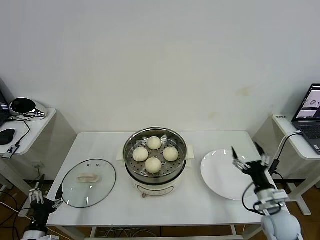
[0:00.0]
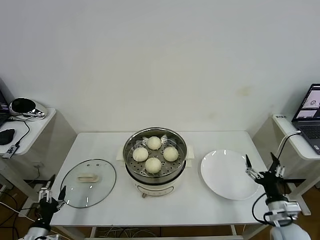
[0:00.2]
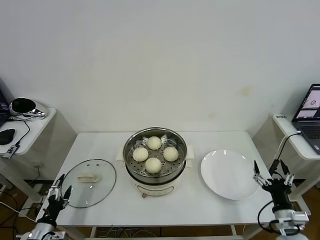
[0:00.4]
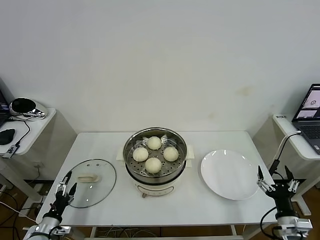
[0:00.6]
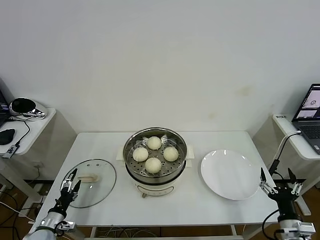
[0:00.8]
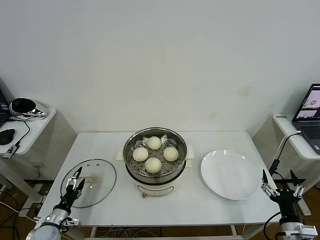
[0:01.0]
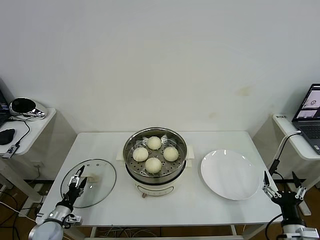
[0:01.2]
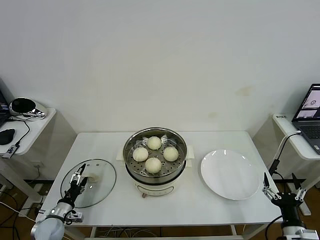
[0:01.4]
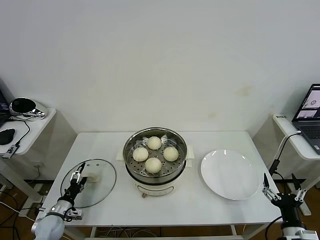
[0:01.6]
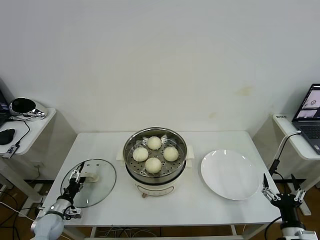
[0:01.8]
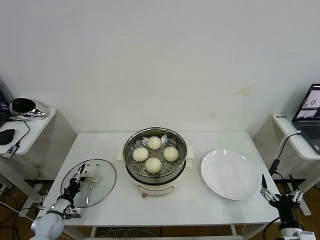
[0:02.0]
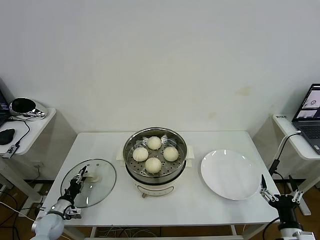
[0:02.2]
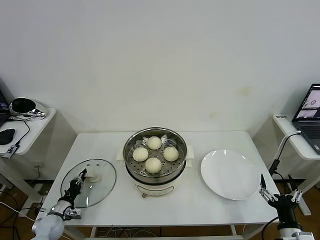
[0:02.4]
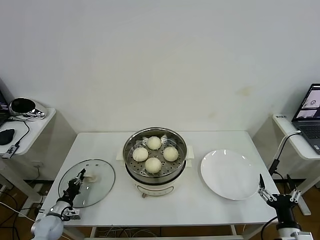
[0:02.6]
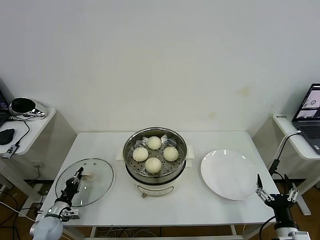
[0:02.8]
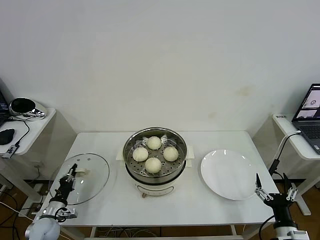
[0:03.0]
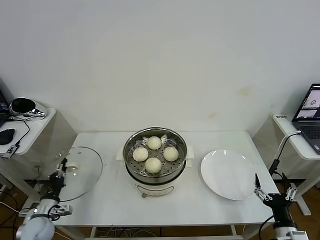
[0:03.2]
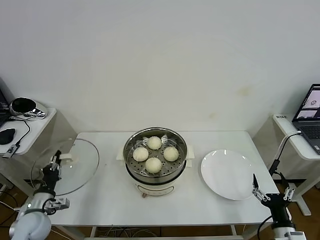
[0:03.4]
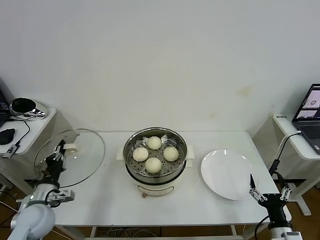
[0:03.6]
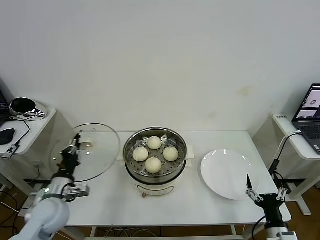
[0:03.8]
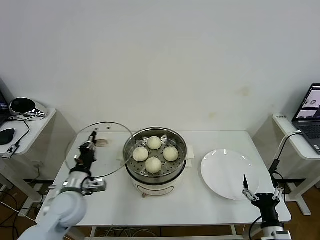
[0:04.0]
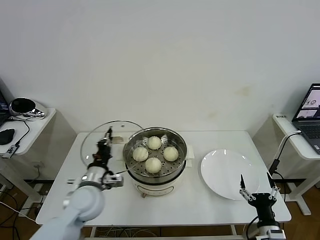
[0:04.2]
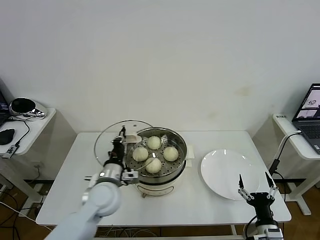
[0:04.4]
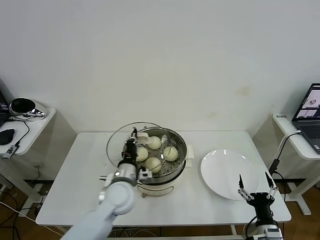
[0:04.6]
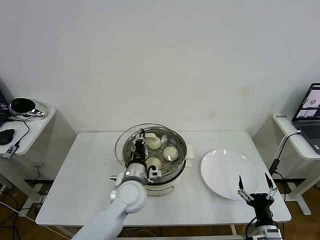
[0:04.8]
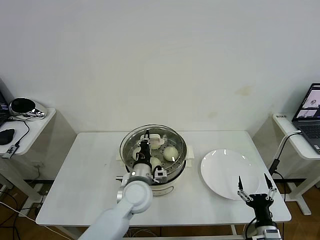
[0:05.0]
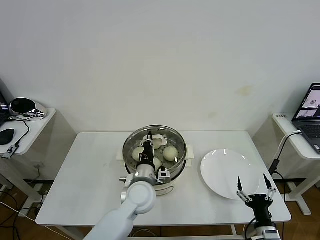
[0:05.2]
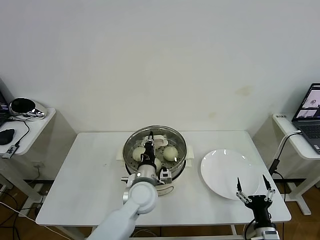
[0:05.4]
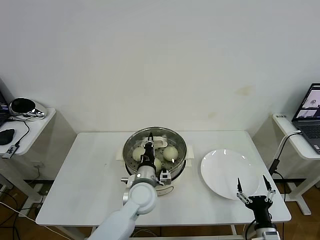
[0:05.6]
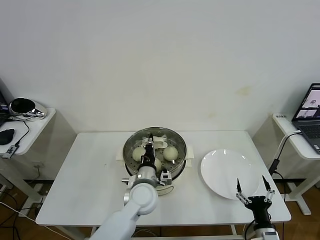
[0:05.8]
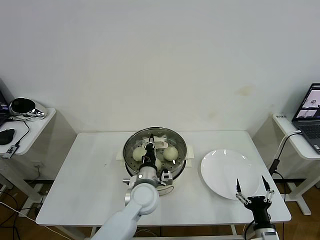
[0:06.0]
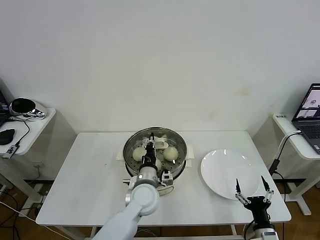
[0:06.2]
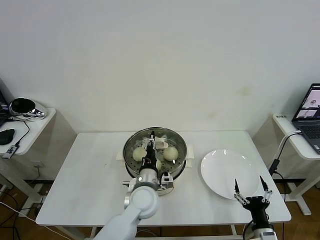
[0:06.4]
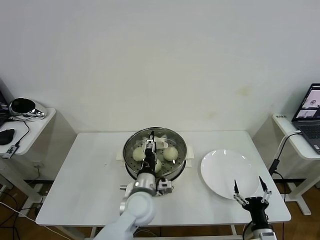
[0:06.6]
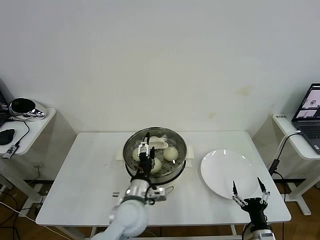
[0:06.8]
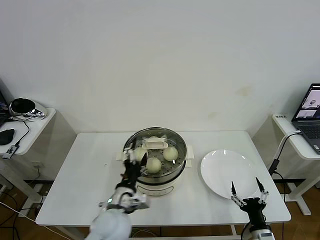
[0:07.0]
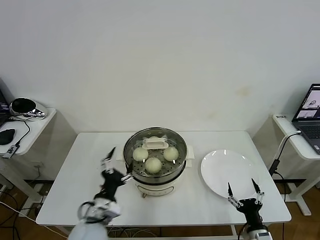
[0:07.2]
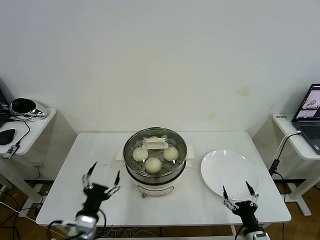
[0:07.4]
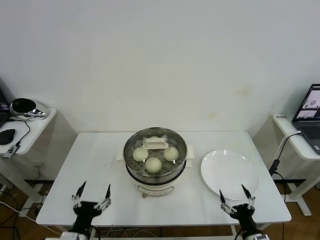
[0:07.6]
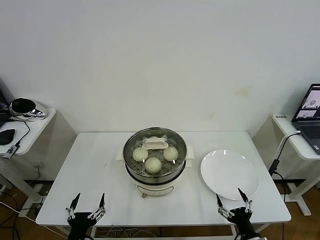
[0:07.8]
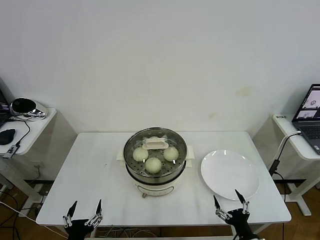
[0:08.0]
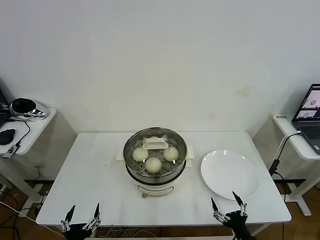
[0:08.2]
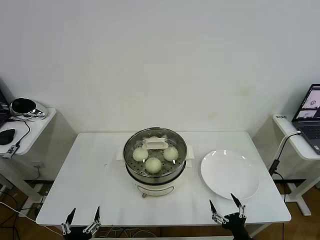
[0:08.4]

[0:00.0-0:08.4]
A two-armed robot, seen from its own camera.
Task of the whole recording: take steamed baozi put them in steamer then cover it.
Step, 0:00.0 to 0:02.6: Grasp the pot lid with left gripper.
Step, 0:02.8 to 0:06.8: Place the pot lid on the steamer with left gripper.
0:00.0 to 0:01.4: The left gripper travels forward and downward by roughly 15 cm; the right gripper is displaced backward by about 10 cm.
0:01.4 to 0:02.8: The left gripper closes its fingers.
0:02.8 to 0:04.2: The left gripper is displaced upward and to the right by roughly 30 cm.
0:04.2 to 0:05.6: The left gripper shifts approximately 15 cm to the right.
0:05.6 to 0:07.0: The left gripper travels backward and to the left by some 10 cm, and opens up.
0:07.0 to 0:08.4: The left gripper heads backward, to the left and downward, covering some 25 cm.
